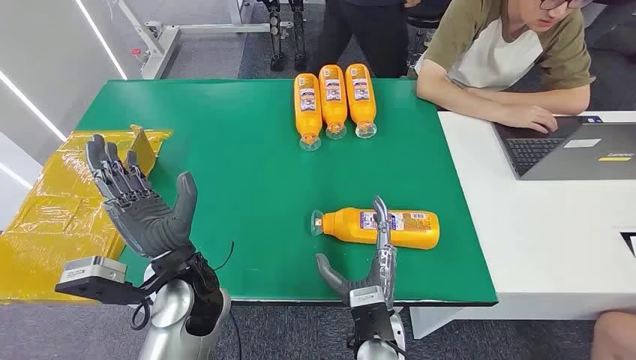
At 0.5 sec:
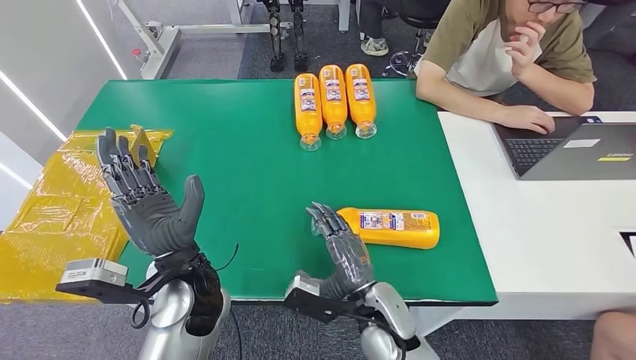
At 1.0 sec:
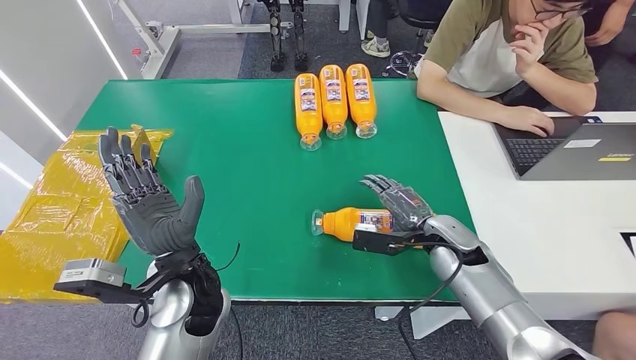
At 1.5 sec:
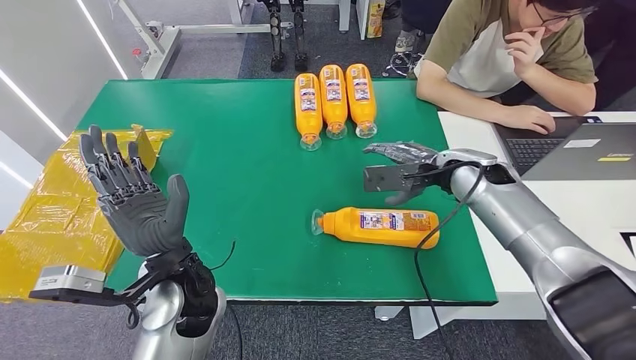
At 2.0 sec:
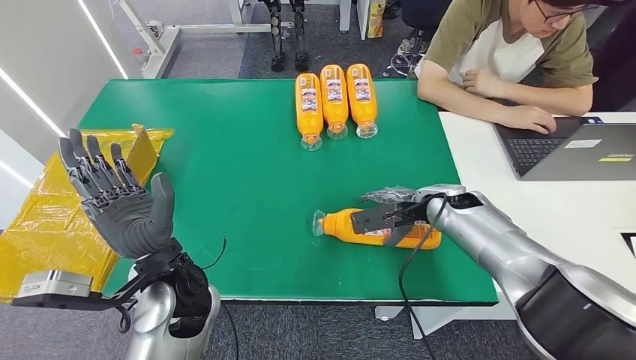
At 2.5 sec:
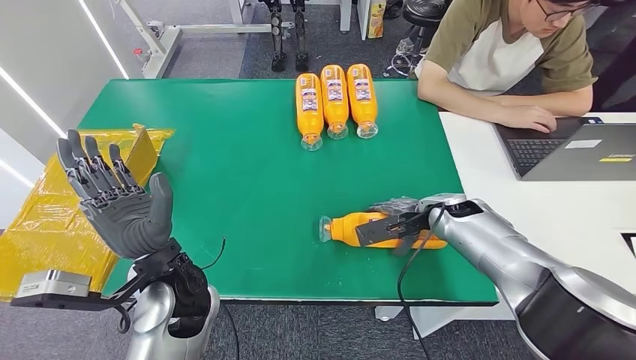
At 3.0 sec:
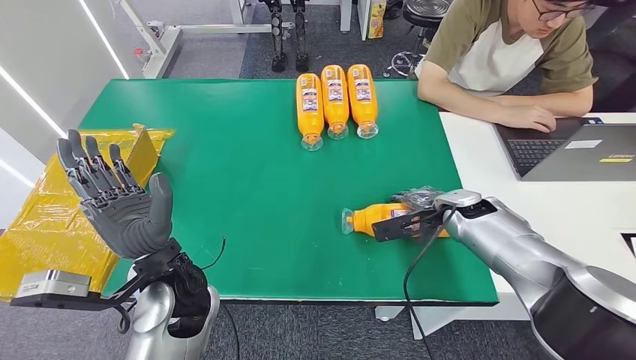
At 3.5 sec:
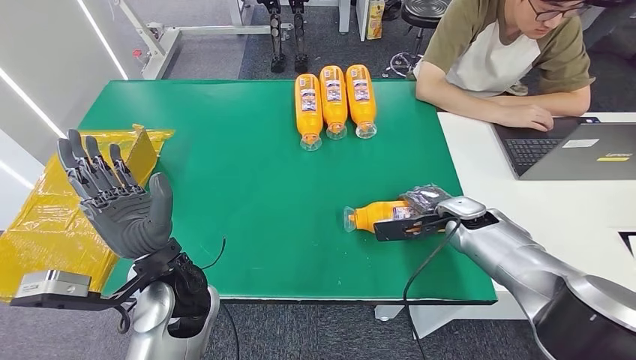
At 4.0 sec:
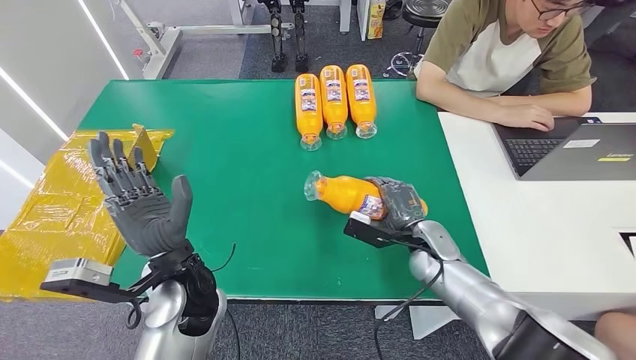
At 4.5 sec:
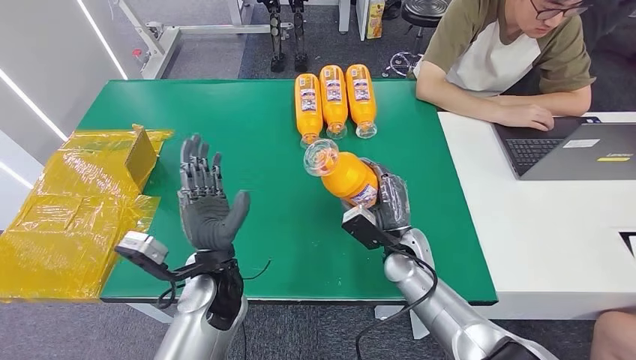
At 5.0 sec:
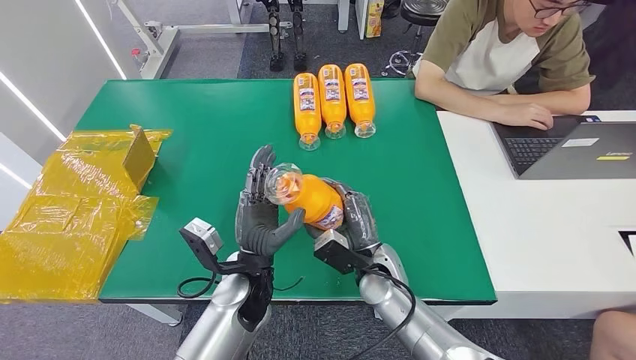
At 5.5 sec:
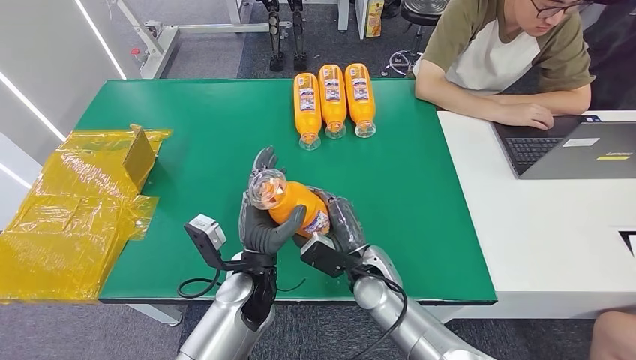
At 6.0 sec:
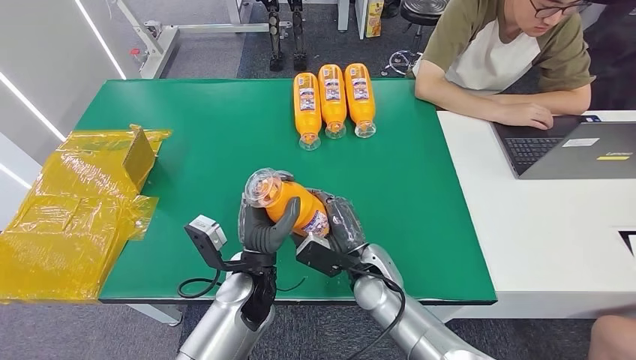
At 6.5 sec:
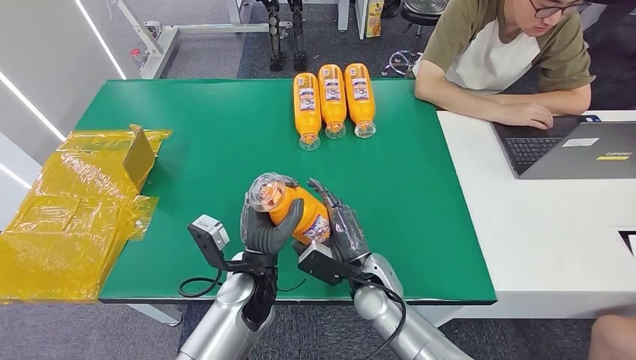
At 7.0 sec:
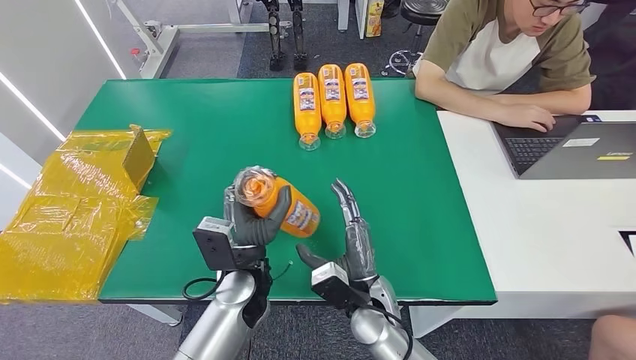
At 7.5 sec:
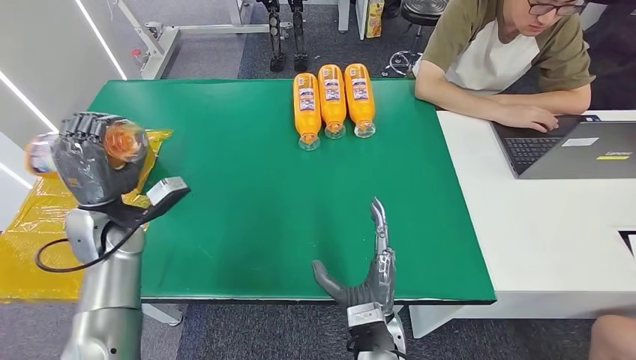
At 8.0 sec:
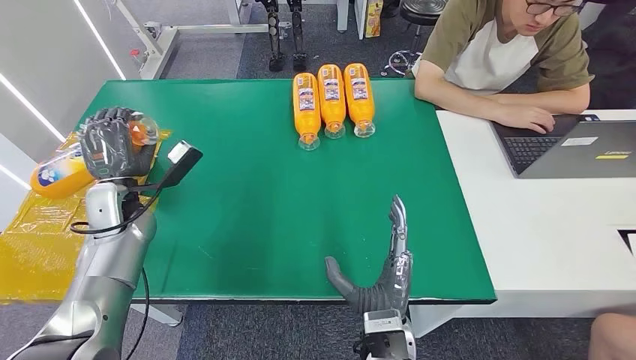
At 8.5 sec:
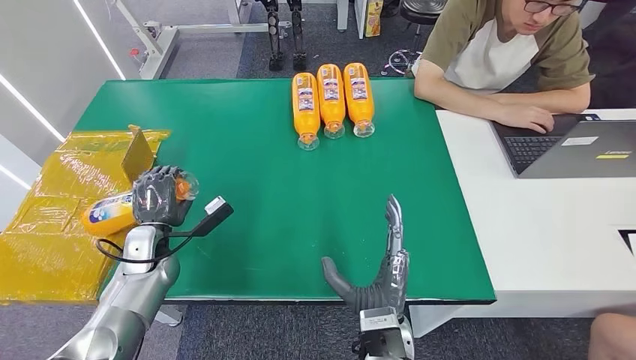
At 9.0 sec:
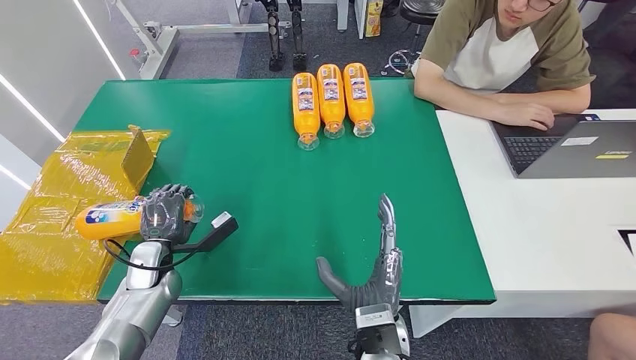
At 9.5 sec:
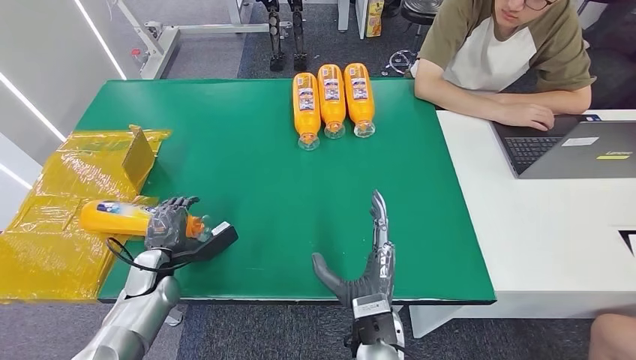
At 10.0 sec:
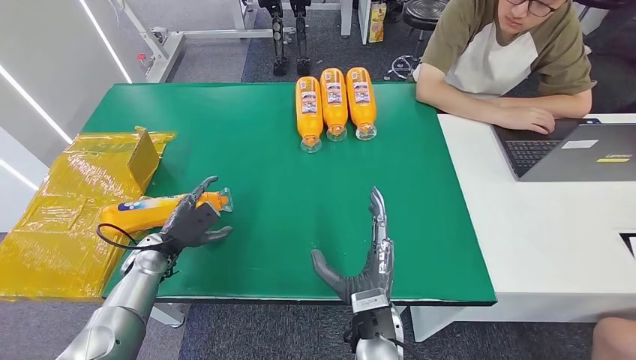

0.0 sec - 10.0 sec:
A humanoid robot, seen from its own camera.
Step, 0.0 sec - 4.5 sec: Pick up the bottle from the table.
Step, 5.0 sec - 10.0 sec: Turn the bottle to the front side.
6.0 sec - 8.0 sec: The right hand travels backward by approximately 10 cm; the left hand moves to the left and forward, roughly 25 cm.
